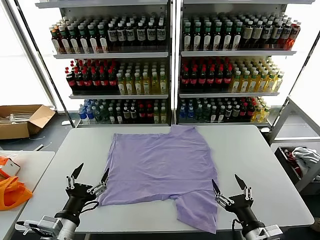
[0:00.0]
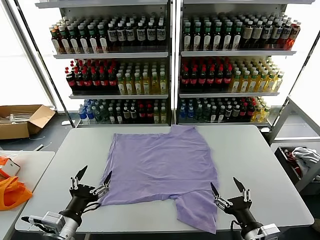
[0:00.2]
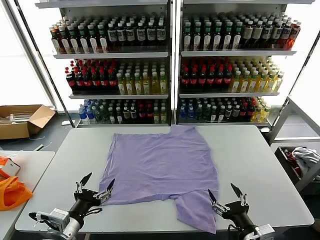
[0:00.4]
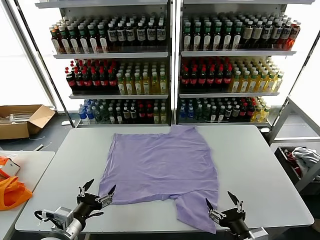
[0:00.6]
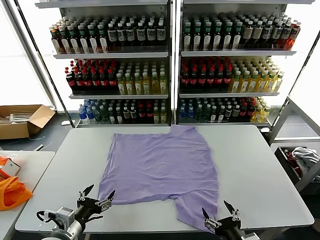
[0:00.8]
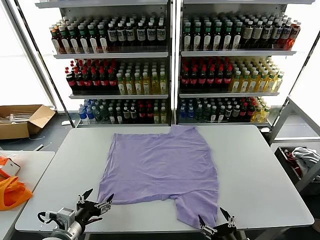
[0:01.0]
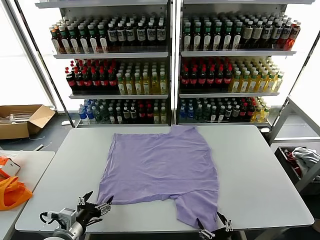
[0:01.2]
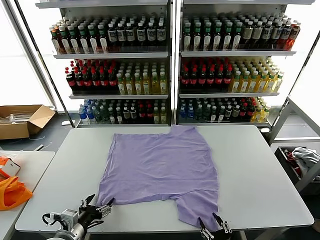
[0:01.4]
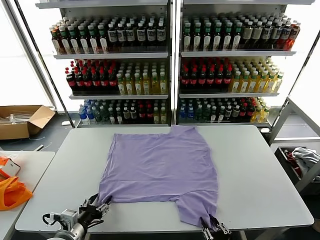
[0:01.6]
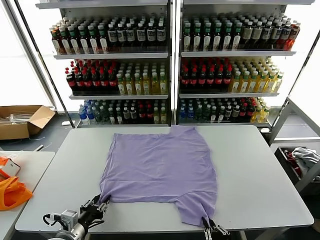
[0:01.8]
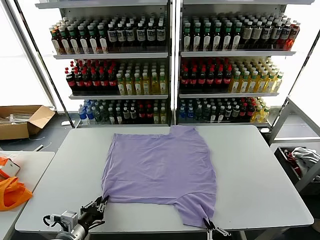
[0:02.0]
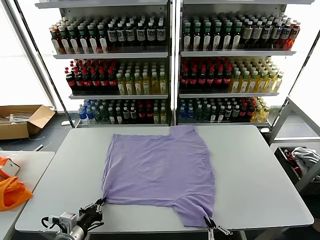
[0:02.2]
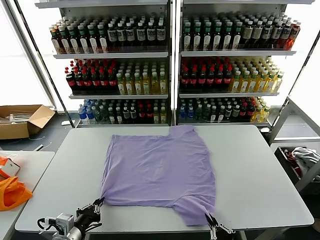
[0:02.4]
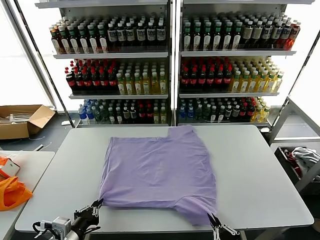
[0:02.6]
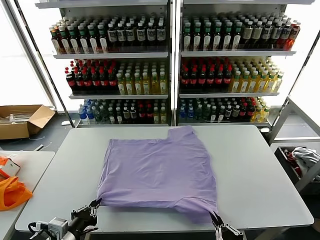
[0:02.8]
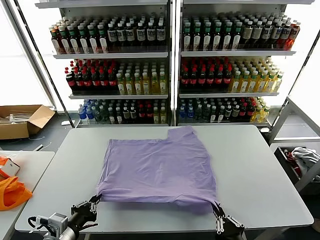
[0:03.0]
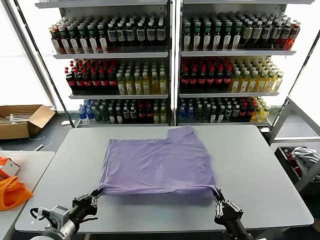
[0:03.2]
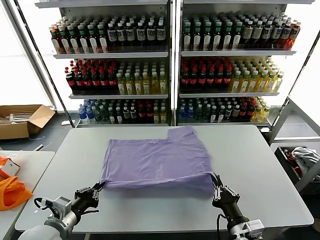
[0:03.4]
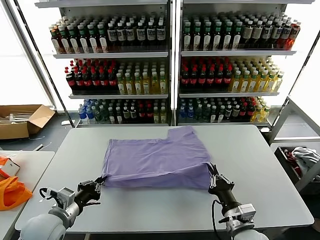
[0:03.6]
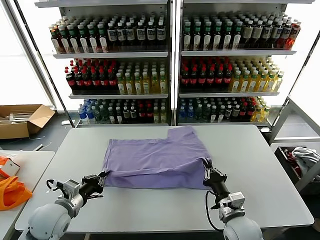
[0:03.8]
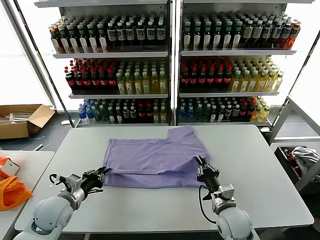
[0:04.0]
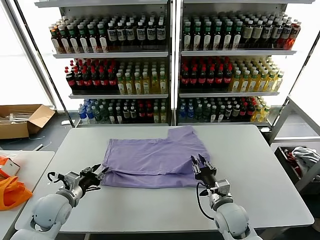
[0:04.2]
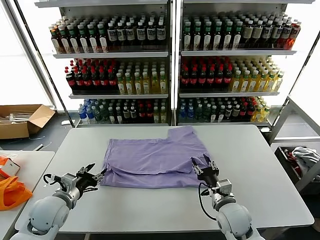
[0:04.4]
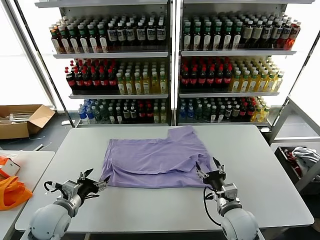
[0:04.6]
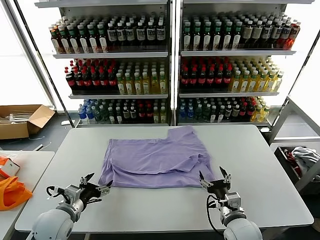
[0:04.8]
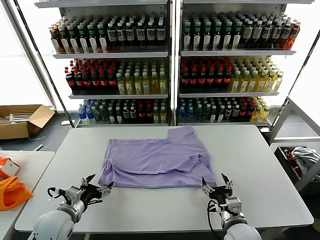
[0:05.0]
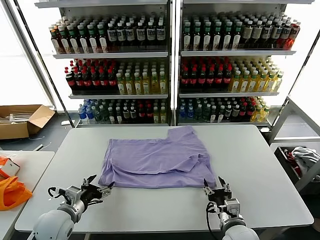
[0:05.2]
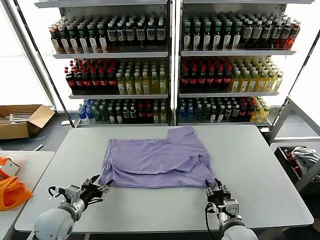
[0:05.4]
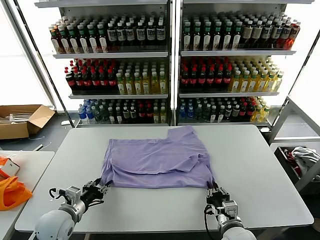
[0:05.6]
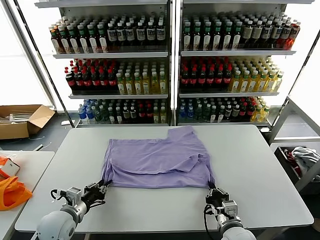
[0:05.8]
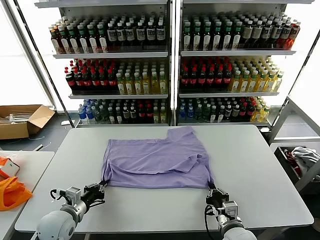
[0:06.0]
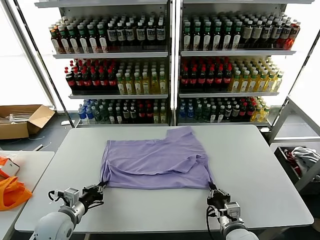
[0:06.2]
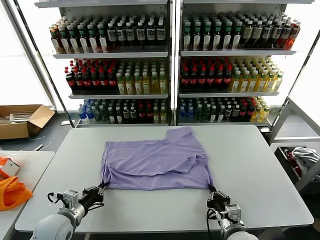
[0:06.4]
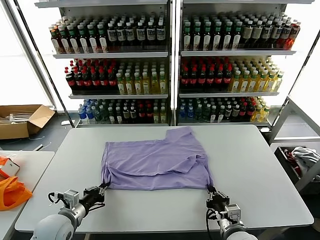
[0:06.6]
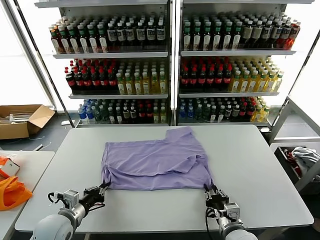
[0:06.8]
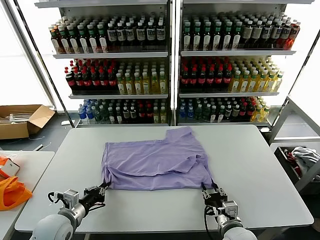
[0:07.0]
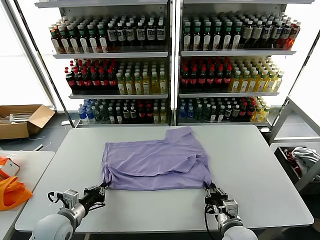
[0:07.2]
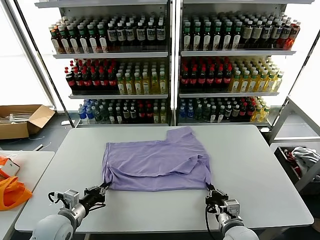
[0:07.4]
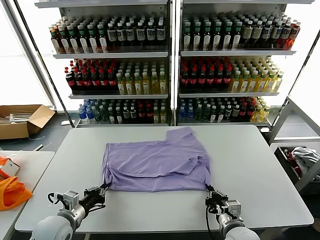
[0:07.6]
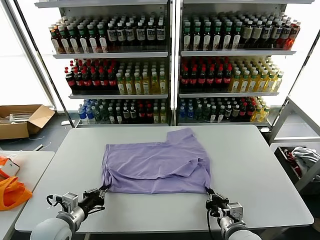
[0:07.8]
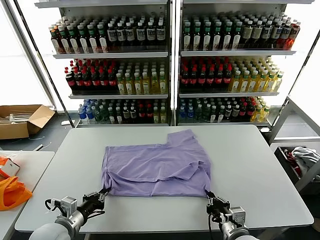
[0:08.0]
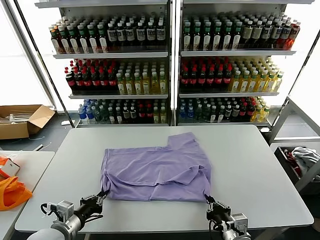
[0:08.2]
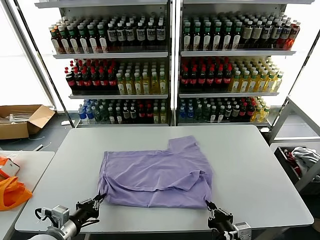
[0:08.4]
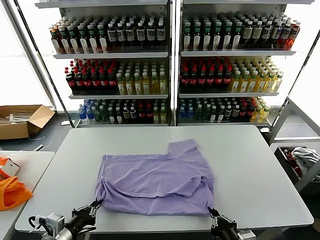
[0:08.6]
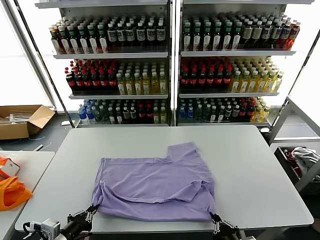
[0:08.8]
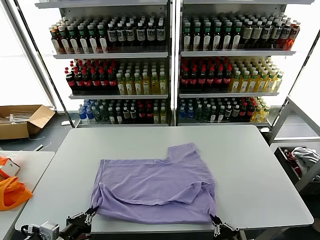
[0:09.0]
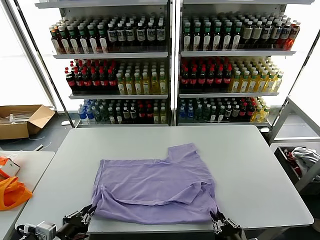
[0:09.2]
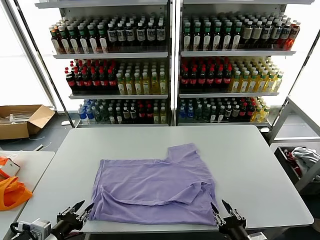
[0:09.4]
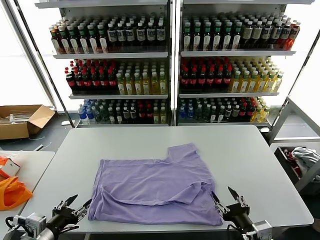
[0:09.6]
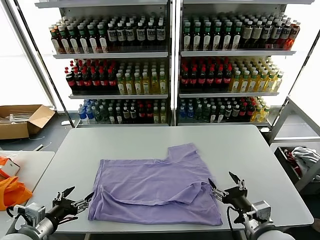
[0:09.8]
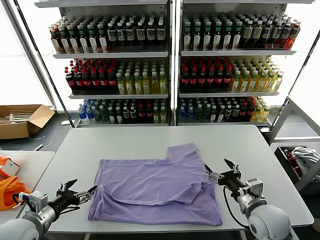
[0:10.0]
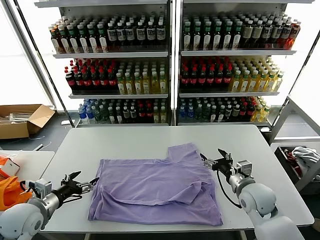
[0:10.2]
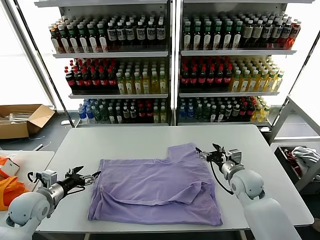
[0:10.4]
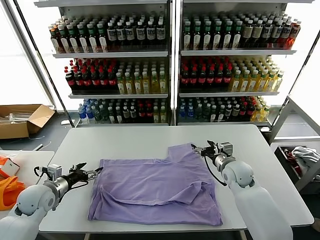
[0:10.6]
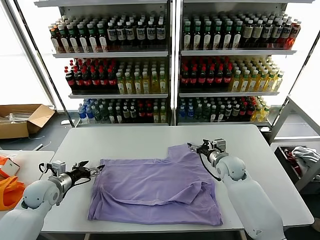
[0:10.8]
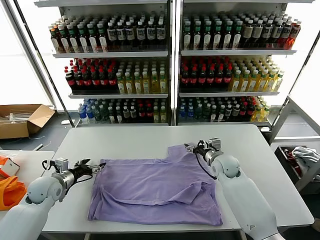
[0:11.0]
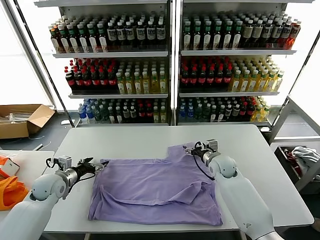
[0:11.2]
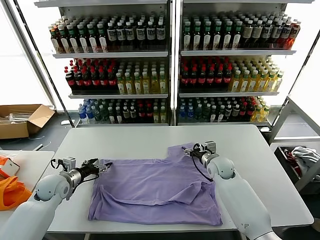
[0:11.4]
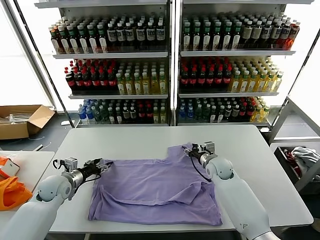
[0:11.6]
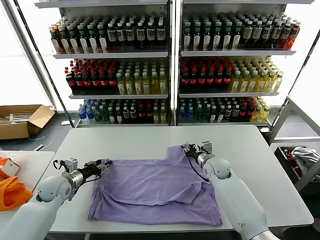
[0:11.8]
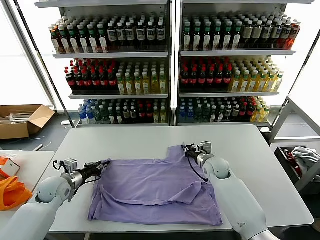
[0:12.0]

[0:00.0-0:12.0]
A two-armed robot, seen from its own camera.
Task of the whole recording: fold and organize the clothes.
Step, 0:00.0 to 0:02.0: use both grippers simultaneously to clamp the lower edge of the clothing fabric.
Step, 0:02.2 to 0:04.4: use both grippers to drag the lower edge of the fabric forward and fold it over the upper edge.
Step, 0:04.6 to 0:09.2: Drag the clothes downward with both gripper.
0:01.6 to 0:03.0: The left gripper moves upward, roughly 5 cm, and closes.
0:03.0 to 0:04.4: The grippers both shift forward by some 15 cm. The left gripper opens its fingers; the right gripper opens.
0:04.4 to 0:06.0: The left gripper shifts by about 5 cm, and closes its fingers. The right gripper is displaced backward by roughly 5 cm, and closes its fingers.
0:06.0 to 0:07.6: The right gripper opens, then closes once more.
0:07.6 to 0:09.0: The grippers both shift backward by some 10 cm.
0:09.0 to 0:10.4: The left gripper heads forward and to the left, covering approximately 20 cm, and opens up; the right gripper travels forward by some 30 cm, and opens its fingers.
0:10.4 to 0:12.0: The left gripper goes about 10 cm forward, and closes its fingers; the right gripper shifts some 10 cm forward, to the left and downward, and closes its fingers.

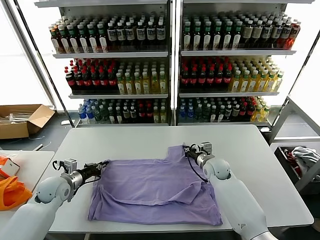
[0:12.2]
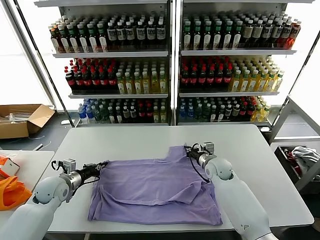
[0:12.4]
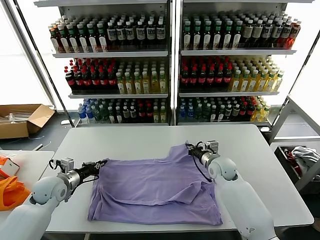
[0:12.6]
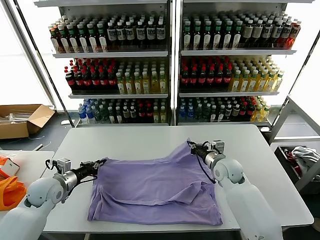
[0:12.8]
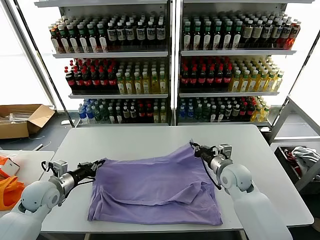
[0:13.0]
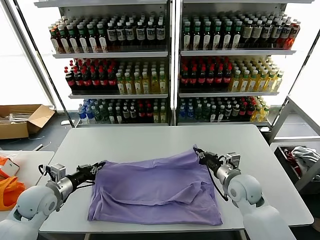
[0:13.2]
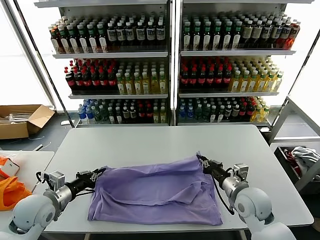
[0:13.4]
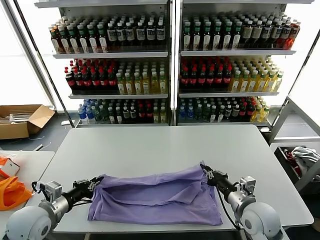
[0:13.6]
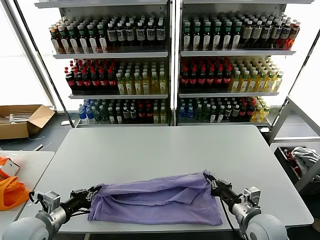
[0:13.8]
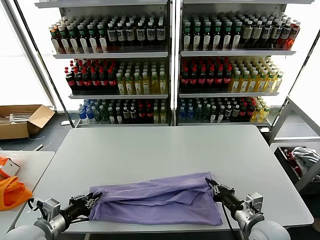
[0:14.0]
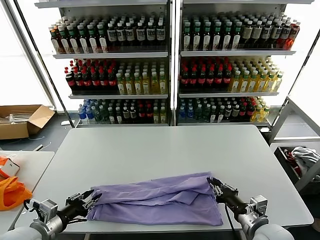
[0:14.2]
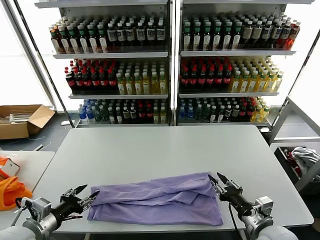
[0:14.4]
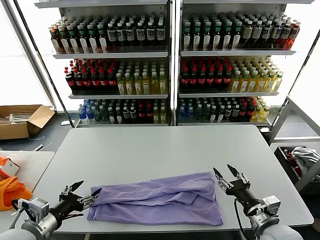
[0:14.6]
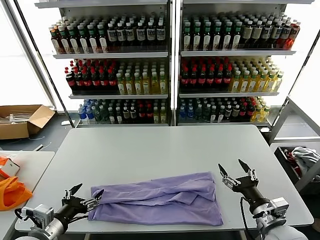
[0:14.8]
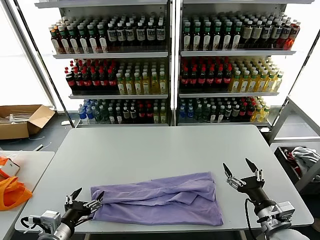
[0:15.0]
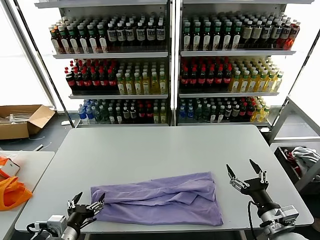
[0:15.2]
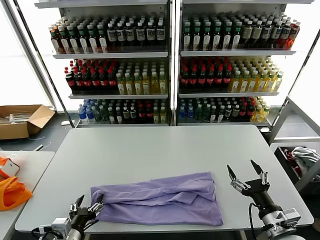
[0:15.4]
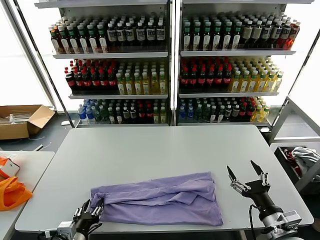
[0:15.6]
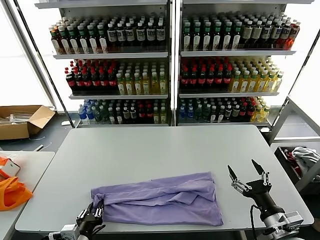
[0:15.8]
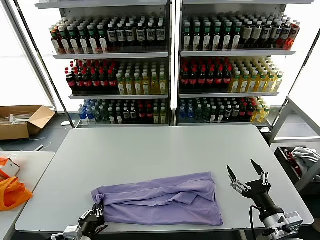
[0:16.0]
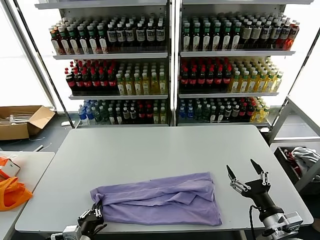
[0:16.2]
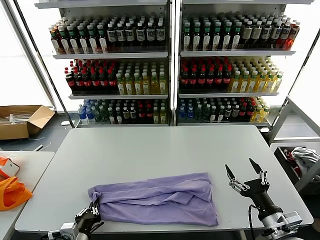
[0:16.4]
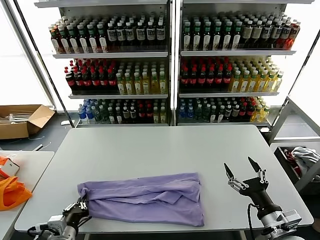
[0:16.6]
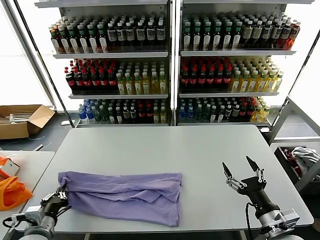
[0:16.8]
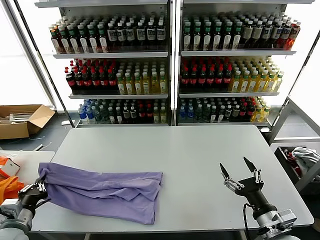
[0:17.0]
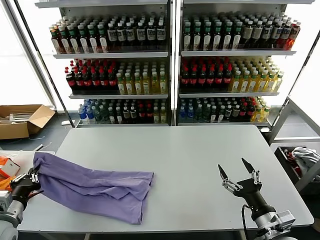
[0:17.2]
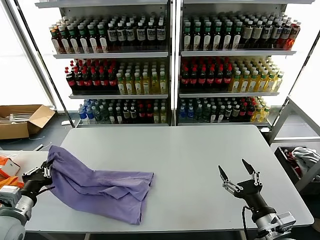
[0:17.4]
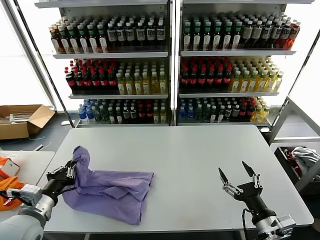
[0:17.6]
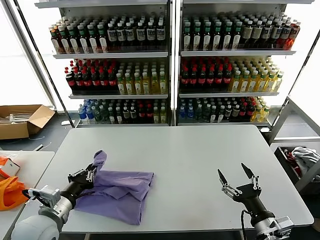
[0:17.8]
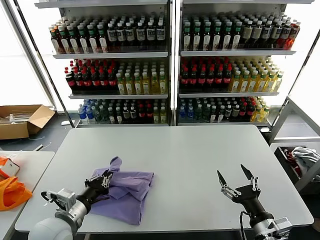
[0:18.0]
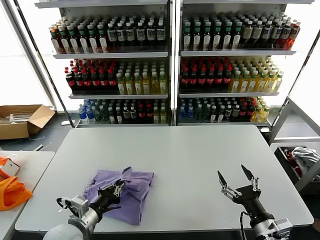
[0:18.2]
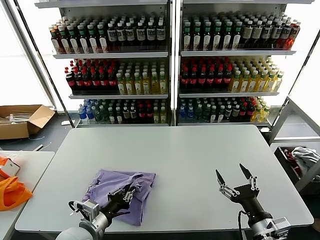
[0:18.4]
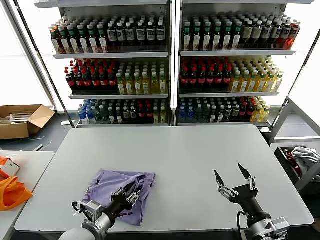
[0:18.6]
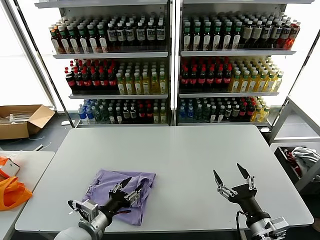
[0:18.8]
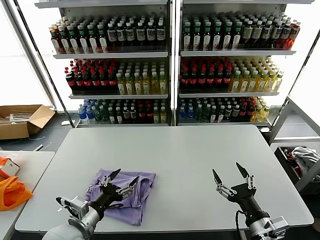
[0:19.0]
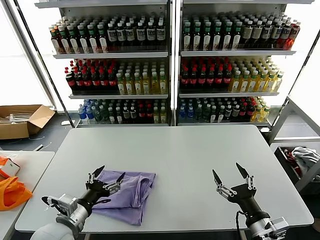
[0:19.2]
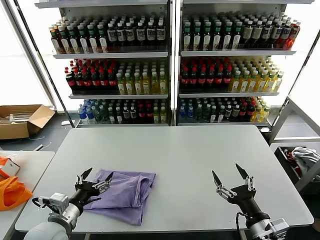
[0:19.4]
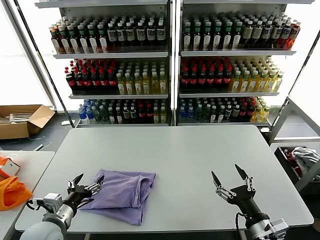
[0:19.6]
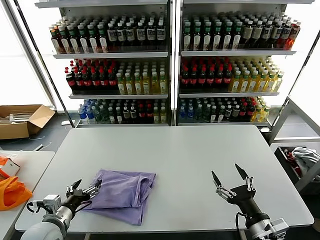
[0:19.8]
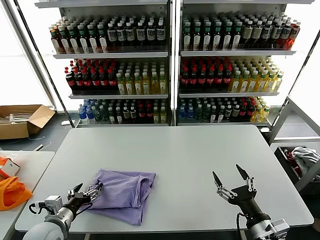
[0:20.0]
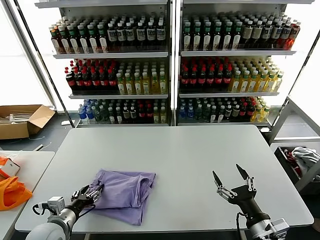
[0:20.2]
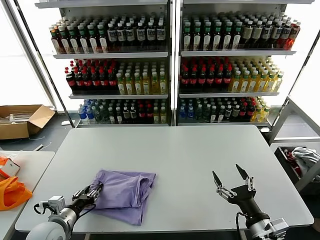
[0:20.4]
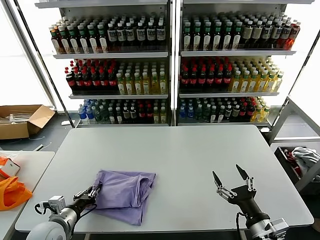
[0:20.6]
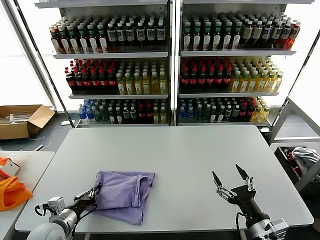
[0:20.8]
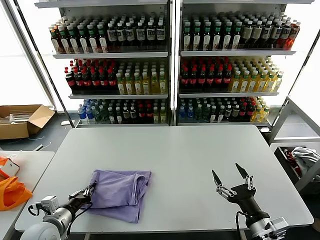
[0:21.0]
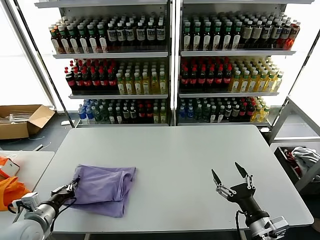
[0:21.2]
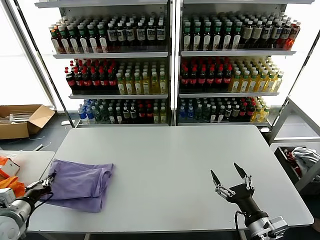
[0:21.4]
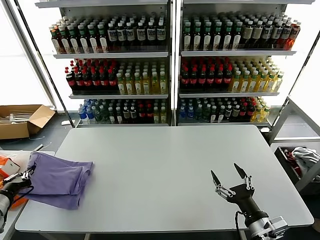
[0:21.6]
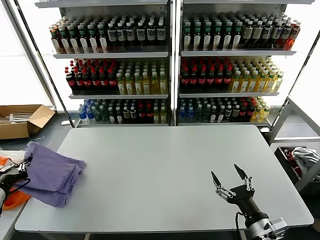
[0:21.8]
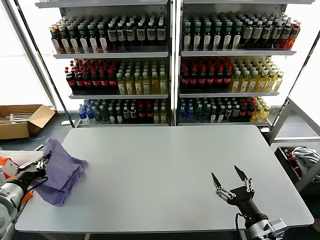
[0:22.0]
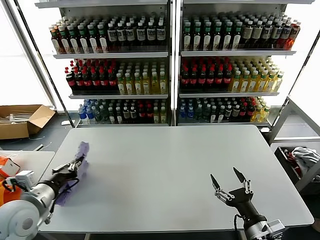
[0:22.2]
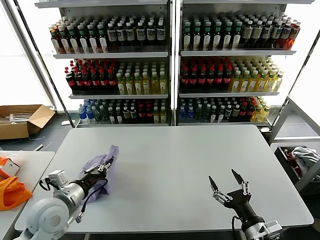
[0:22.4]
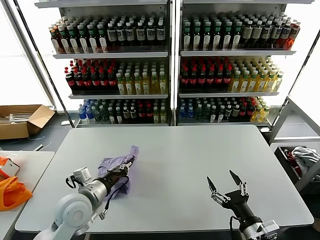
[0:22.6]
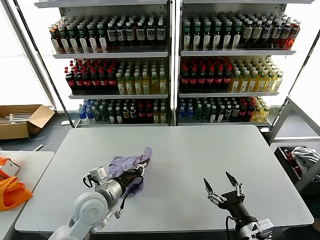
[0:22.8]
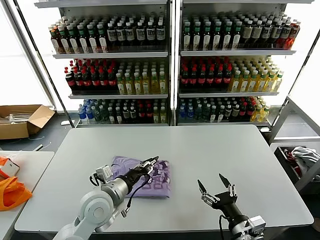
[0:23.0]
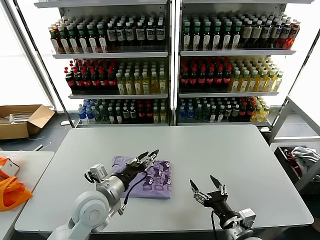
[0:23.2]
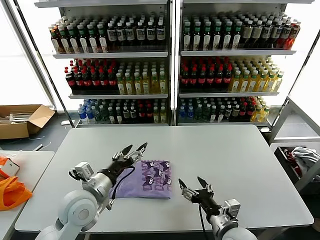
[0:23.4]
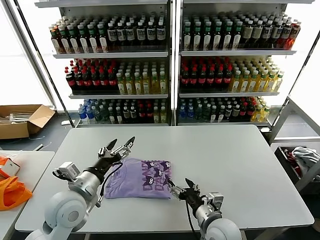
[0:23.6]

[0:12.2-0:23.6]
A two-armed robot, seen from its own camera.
Task of the whole recording: fold and organize the clothes.
Step, 0:12.2 to 0:14.2: use both grippers to drag the upper edge of the fabric backward and fold it over the lower edge.
Step, 0:14.6 to 0:16.0: use the left gripper to clamp the left edge of the fabric.
Step, 0:16.2 to 0:18.8: use the left gripper to drag the left edge of the fabric to the left and folds it over the right edge.
Step, 0:19.0 to 0:23.0: Flip the folded clothes over with left gripper.
0:12.2 to 0:13.6: The left gripper travels backward and upward by about 15 cm, while the right gripper heads backward, covering some 20 cm.
0:13.6 to 0:15.0: The right gripper travels backward by about 5 cm, and opens its fingers; the left gripper is displaced backward and to the right by about 10 cm, and opens up.
0:15.0 to 0:16.4: The left gripper heads downward, covering about 5 cm, and closes.
0:16.4 to 0:17.8: The left gripper goes some 10 cm upward and forward, and moves about 15 cm to the left and comes back.
0:17.8 to 0:19.4: The left gripper moves some 10 cm to the right and comes back, and opens up.
0:19.4 to 0:20.8: The left gripper travels downward by roughly 5 cm, and closes its fingers.
0:20.8 to 0:22.2: The left gripper heads upward, covering approximately 15 cm.
0:22.2 to 0:23.6: The left gripper heads to the right, covering about 15 cm, and opens up, while the right gripper moves to the left and forward, some 15 cm.
